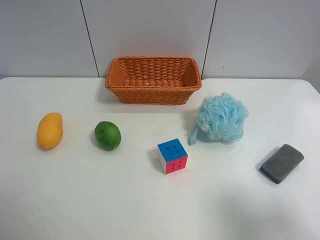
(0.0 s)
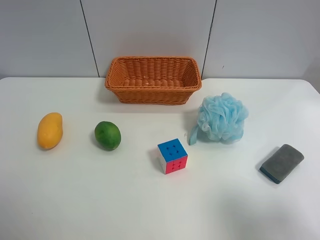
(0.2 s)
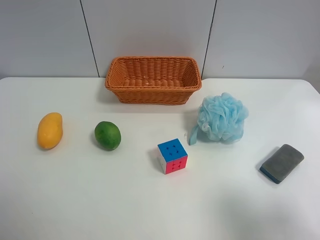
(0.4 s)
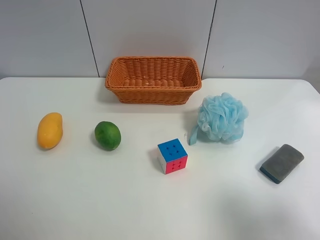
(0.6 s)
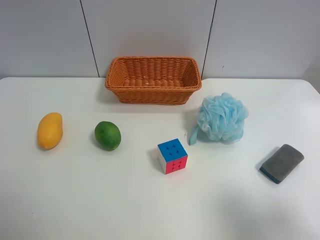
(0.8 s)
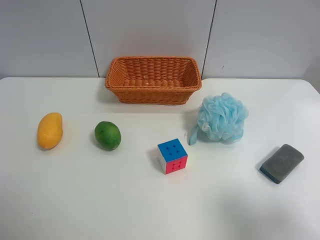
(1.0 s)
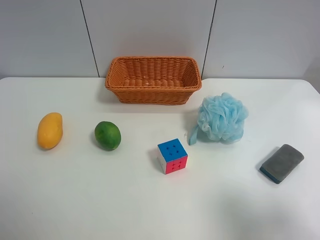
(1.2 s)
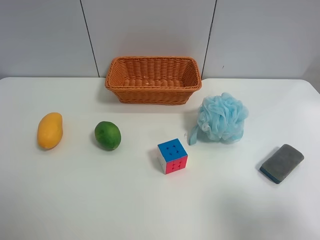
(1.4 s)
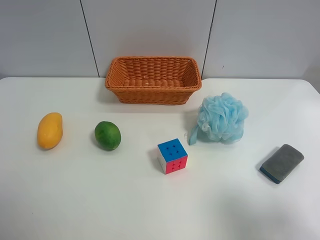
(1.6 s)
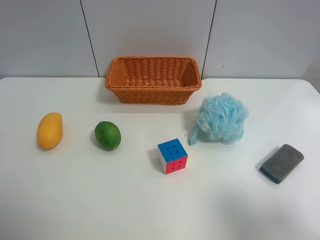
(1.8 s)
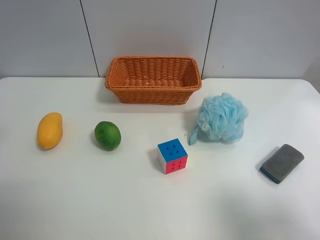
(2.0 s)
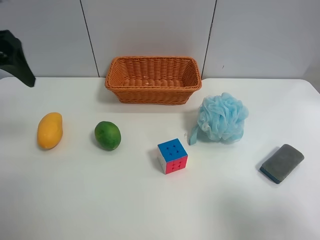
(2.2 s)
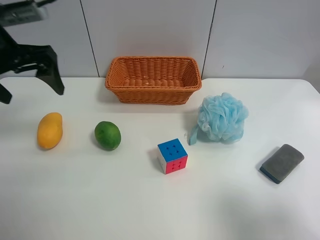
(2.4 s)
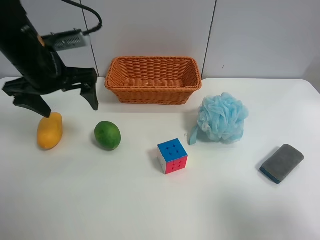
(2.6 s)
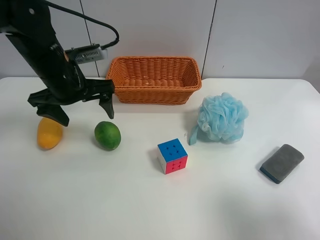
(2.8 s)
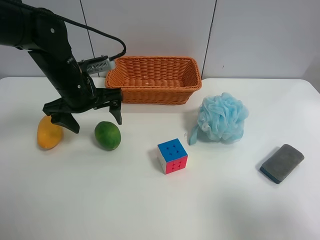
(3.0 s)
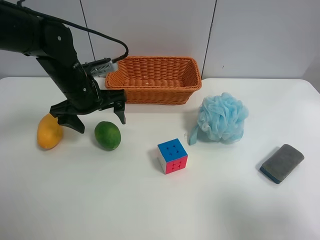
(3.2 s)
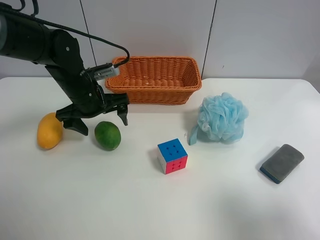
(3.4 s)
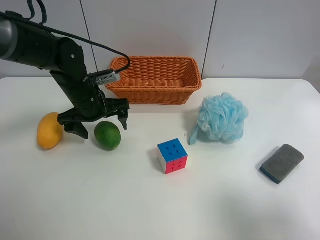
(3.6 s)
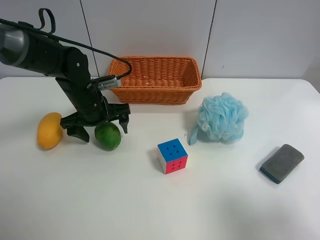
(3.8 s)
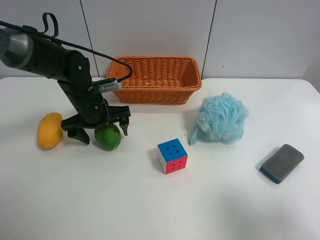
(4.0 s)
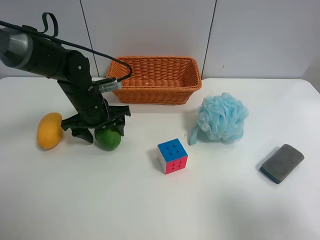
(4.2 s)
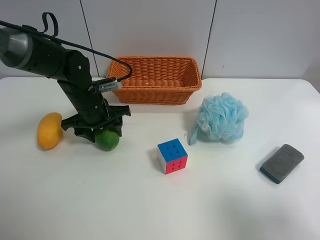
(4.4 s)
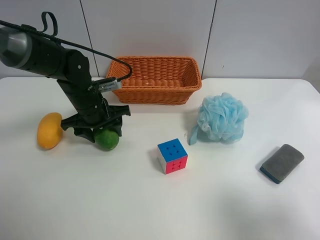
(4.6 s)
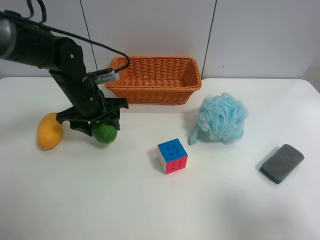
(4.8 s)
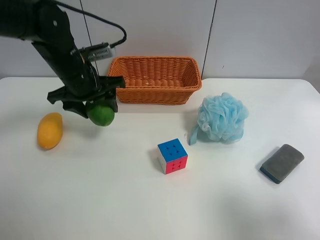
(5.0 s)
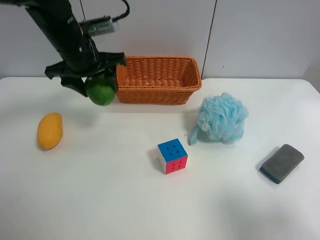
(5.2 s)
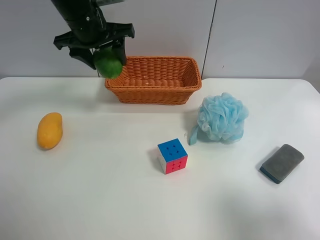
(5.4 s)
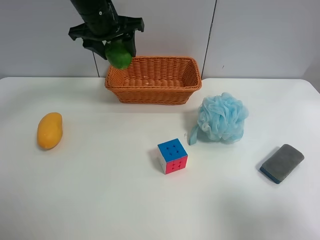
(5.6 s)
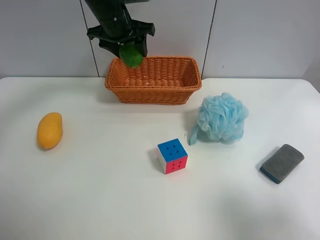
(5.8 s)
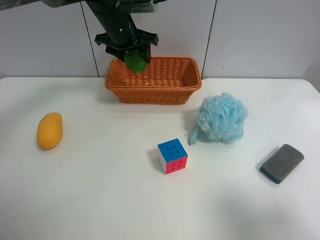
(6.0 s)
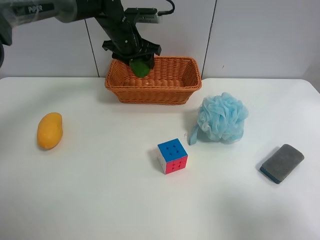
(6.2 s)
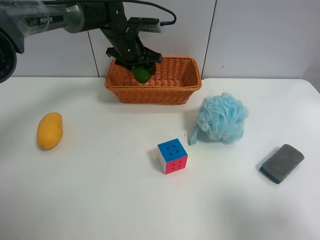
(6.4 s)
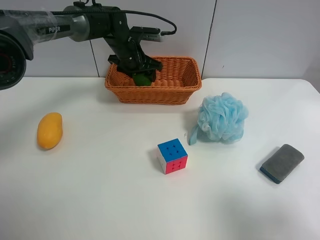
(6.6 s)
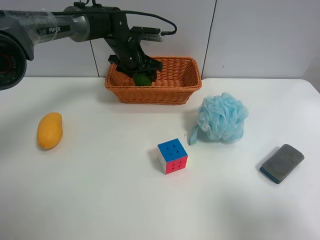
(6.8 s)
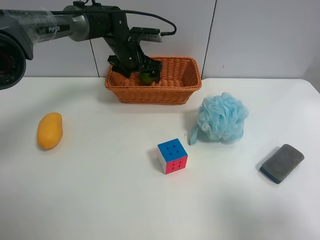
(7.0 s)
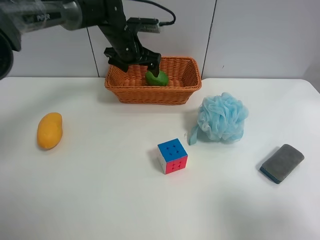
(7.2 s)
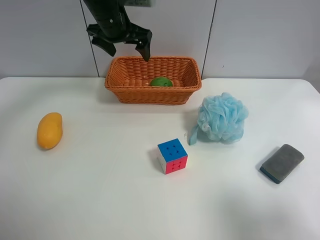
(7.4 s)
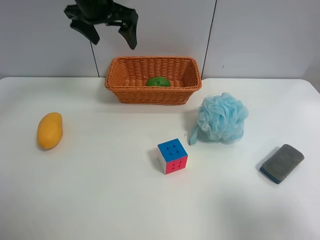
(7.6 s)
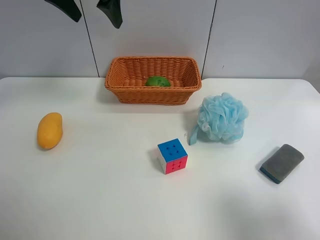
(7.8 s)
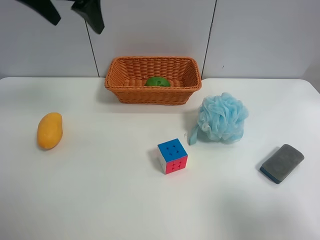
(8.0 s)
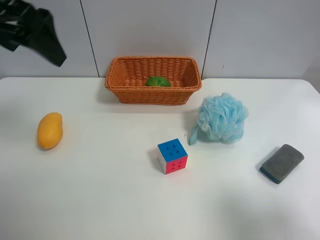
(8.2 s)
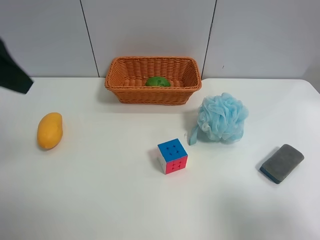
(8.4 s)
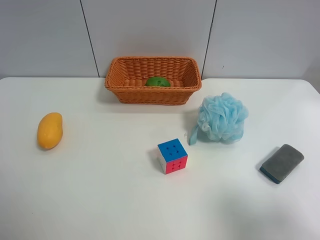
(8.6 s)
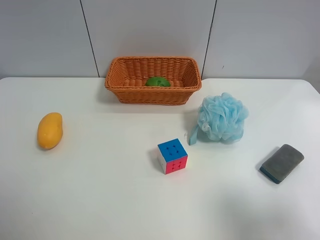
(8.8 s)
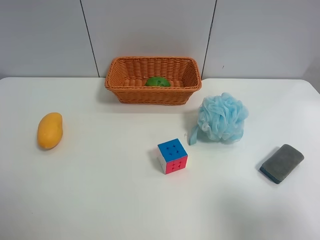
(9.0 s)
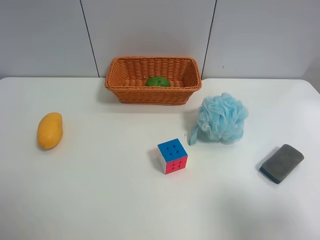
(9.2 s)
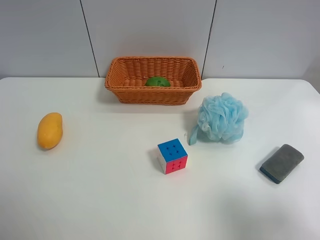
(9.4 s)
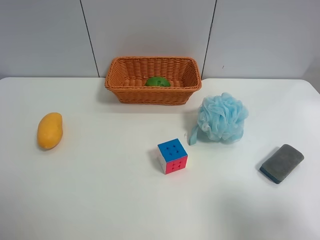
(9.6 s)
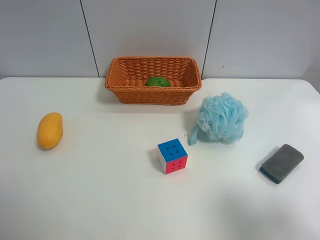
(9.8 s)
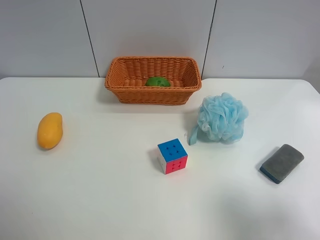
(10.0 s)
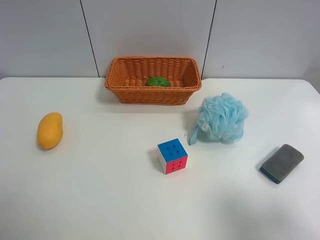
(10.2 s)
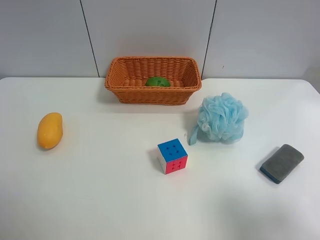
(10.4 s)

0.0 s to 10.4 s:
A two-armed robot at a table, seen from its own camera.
Task of the whole recording: use the left gripper to grab items from the table and place them in the basket.
Step, 0.0 to 4.4 s: Grasp the apple rubber puff with the left gripper.
Step, 4.6 to 7.2 s: Place the apple rubber puff into the basket with the left gripper.
1.4 to 3.0 s: The left gripper is displaced forward, to the right and downward by some 35 cm.
3.0 to 4.4 s: The left gripper travels downward by about 5 cm, and closes its fingers.
4.4 to 6.0 s: The left gripper heads forward, upward and to the right, covering approximately 20 cm.
6.0 to 7.4 s: The left gripper shifts by roughly 5 cm, and opens its fingers.
7.4 to 9.0 s: The left gripper heads backward and to the left, covering approximately 50 cm.

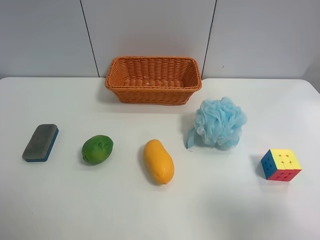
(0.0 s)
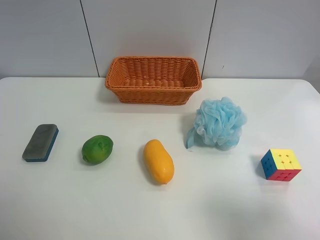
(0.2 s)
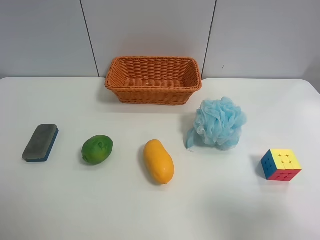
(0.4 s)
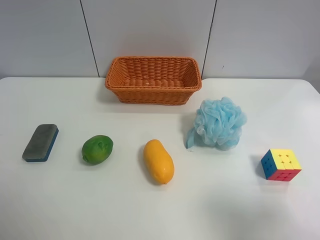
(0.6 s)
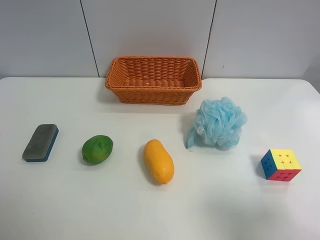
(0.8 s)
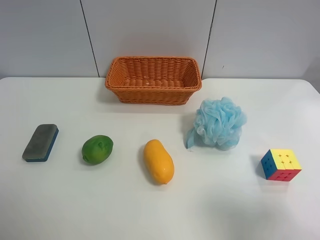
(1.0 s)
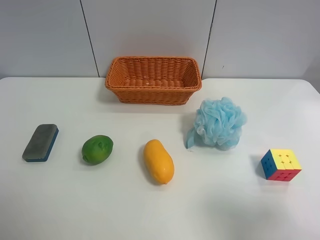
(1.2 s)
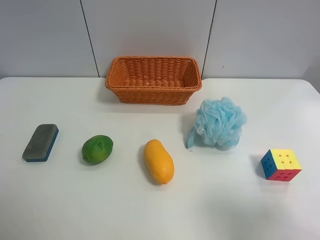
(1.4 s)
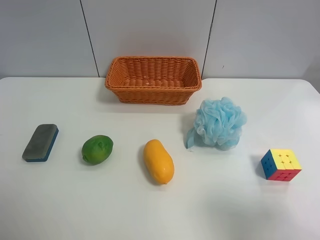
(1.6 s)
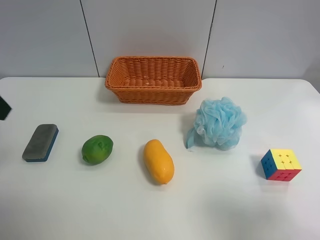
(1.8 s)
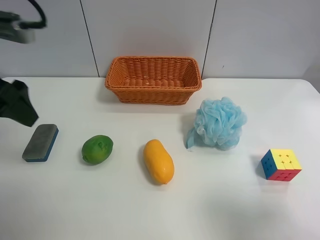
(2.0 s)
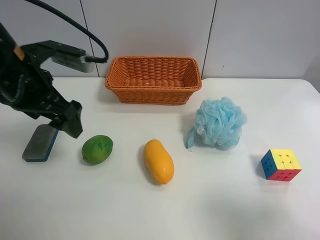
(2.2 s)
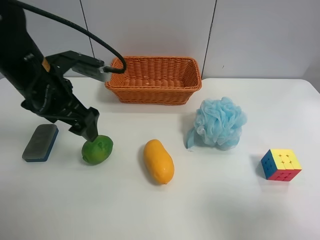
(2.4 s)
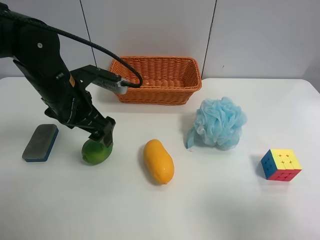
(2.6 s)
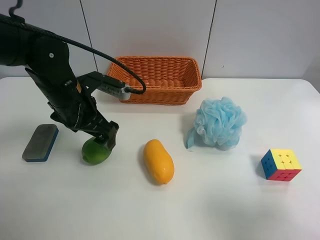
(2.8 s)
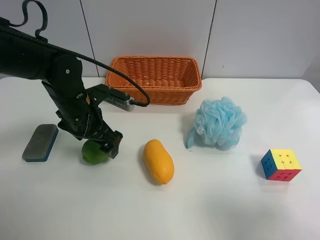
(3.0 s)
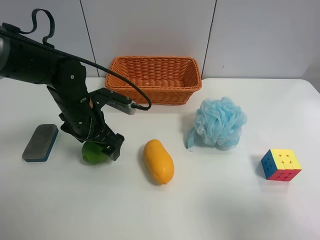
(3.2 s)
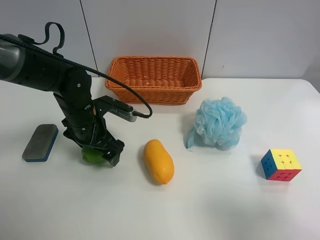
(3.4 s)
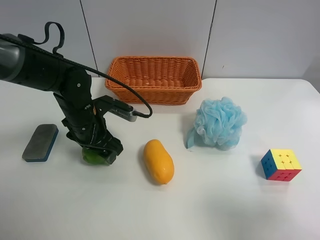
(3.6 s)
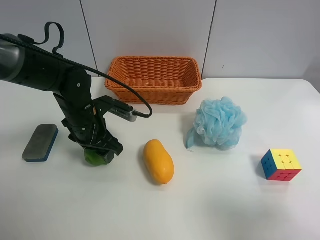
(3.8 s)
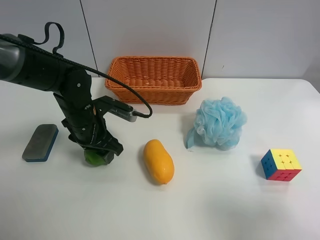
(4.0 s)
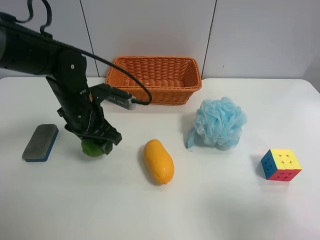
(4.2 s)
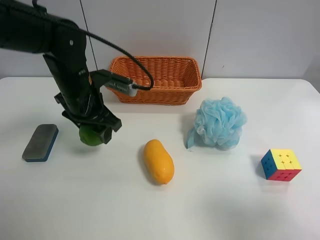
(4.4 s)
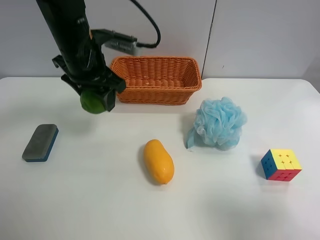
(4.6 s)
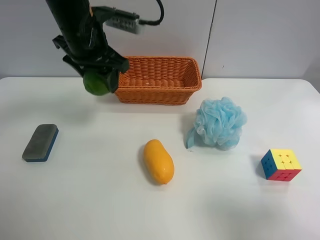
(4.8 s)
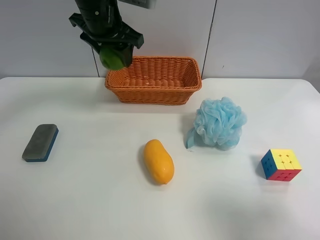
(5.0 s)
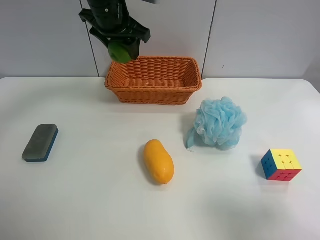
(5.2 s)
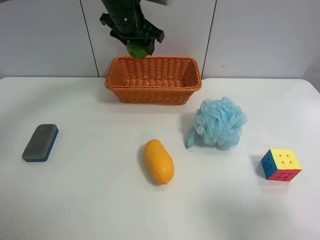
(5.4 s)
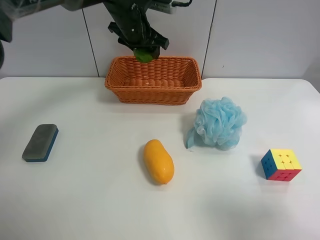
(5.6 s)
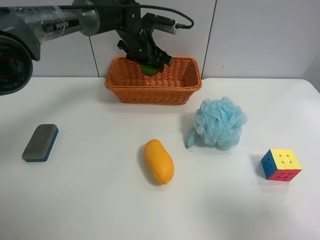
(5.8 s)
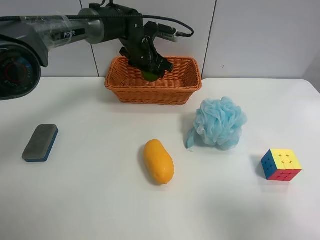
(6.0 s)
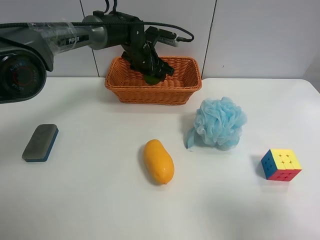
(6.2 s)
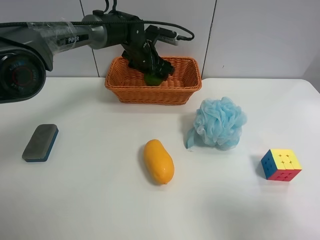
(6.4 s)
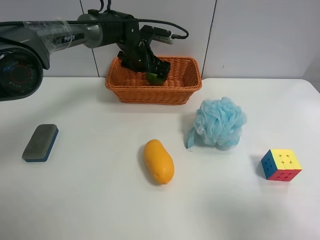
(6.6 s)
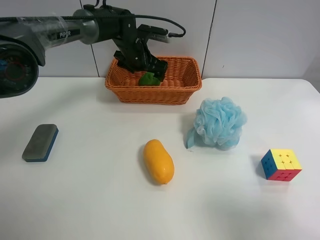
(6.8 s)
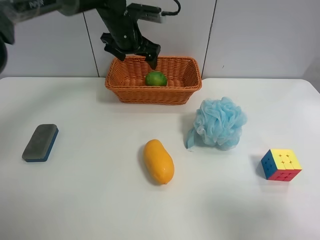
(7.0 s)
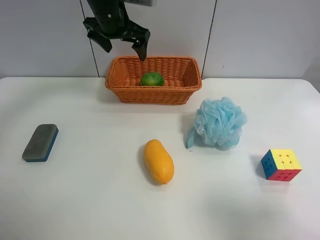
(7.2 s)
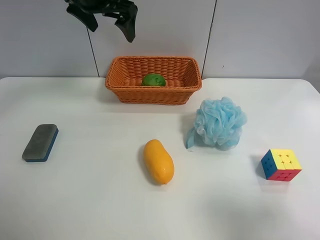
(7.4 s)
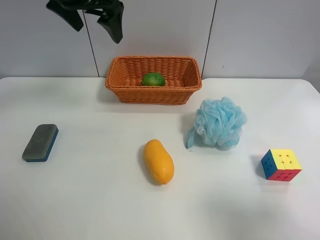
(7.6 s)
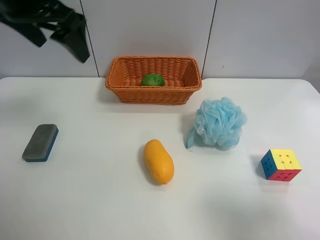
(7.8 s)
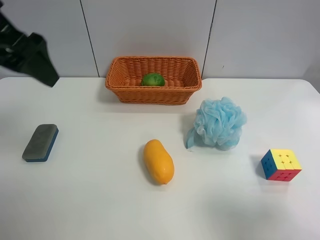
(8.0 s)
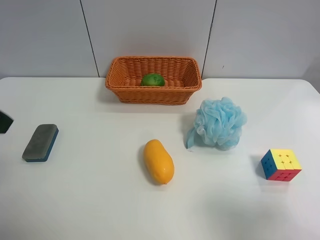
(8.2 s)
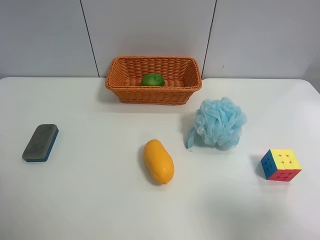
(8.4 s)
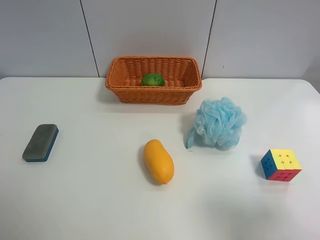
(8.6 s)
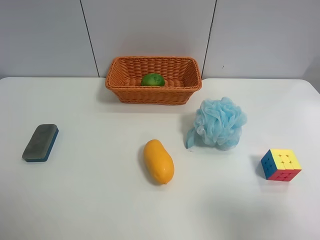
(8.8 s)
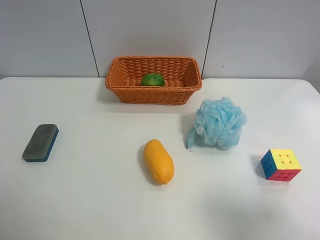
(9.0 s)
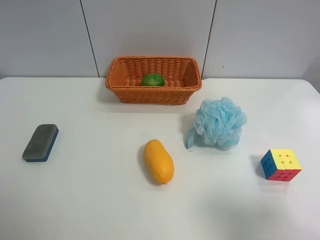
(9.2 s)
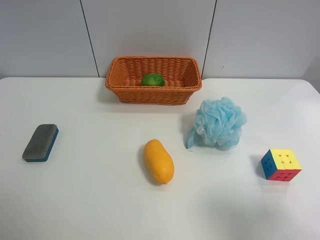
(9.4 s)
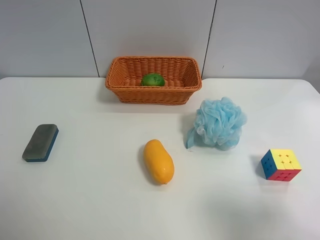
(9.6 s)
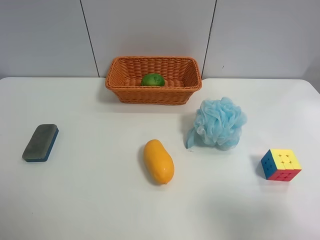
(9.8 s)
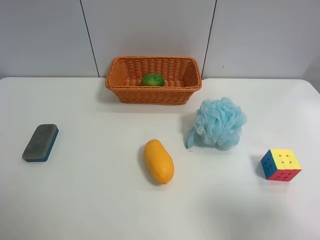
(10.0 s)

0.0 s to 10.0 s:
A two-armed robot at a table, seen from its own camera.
Task of the whole recording: use the left gripper to grab items from the table and place them in the basket.
Step, 0.0 to 3.6 s: Grasp the apple rubber puff with the left gripper.
Step, 3.8 to 6.8 s: Place the apple rubber puff into the basket with the left gripper.
1.4 to 2.8 s: The left gripper shifts some 30 cm forward, downward and to the right.
2.8 to 4.2 s: The left gripper closes its fingers.
4.2 to 5.8 s: The left gripper shifts some 20 cm forward and to the right.
5.8 to 7.2 s: The left gripper is displaced upward and to the left by approximately 10 cm, and opens up.
7.2 to 8.6 s: The left gripper shifts roughly 40 cm backward and to the left.
